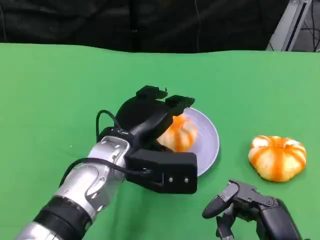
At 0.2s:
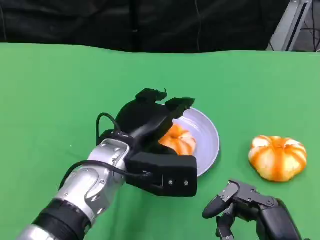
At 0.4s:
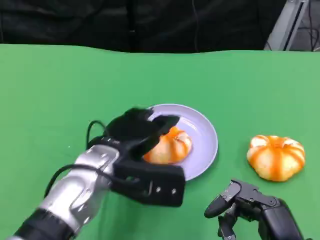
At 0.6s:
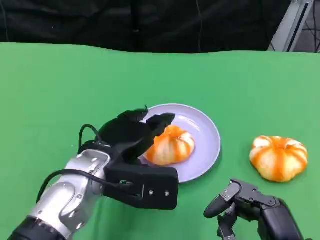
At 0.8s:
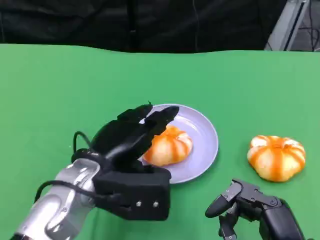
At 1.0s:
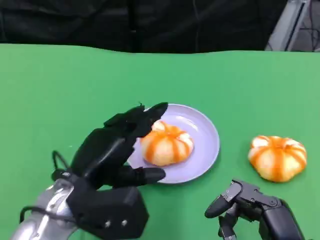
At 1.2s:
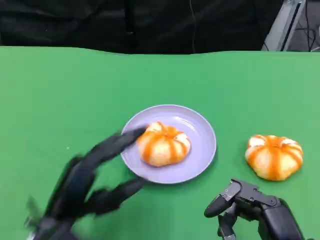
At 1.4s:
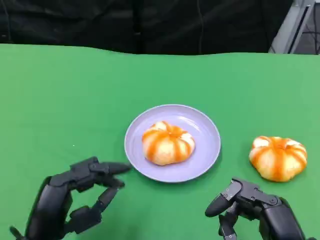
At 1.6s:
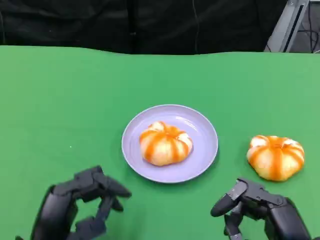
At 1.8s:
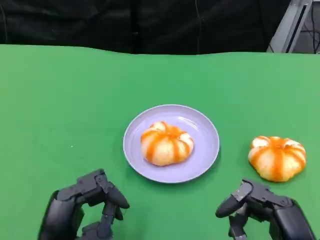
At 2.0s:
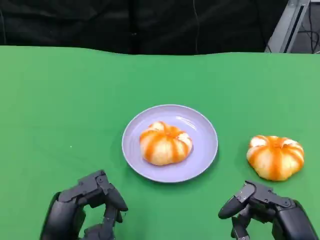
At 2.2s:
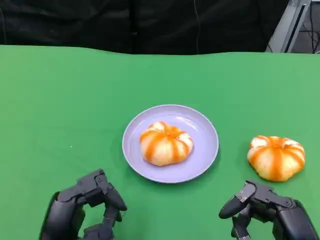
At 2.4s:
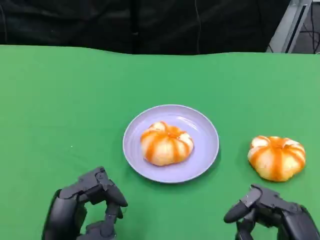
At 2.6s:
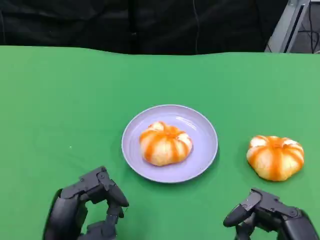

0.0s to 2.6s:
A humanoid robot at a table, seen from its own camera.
Task of the whole recording: Grasp the bread from the table and place it into the plate.
0.0s to 1.2s: The left hand goes approximately 15 cm backward and to the left.
1.2s to 2.6s: The hands stay close to where they were, moving slightly.
